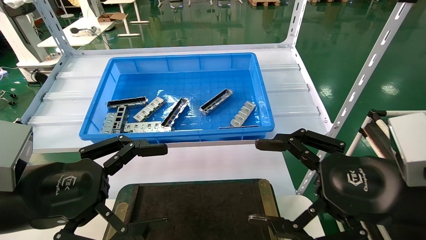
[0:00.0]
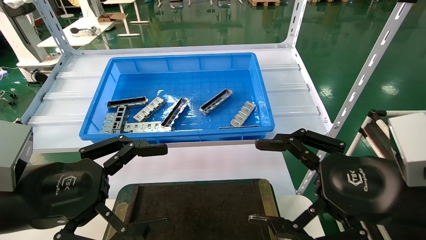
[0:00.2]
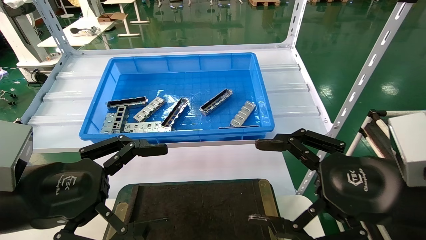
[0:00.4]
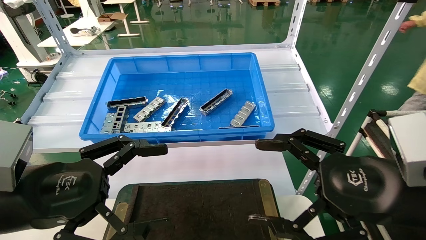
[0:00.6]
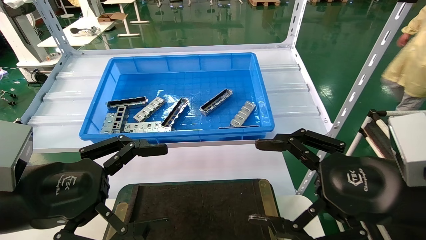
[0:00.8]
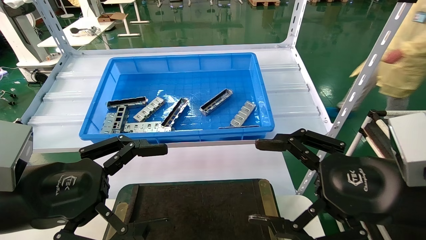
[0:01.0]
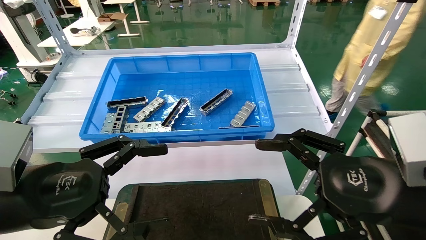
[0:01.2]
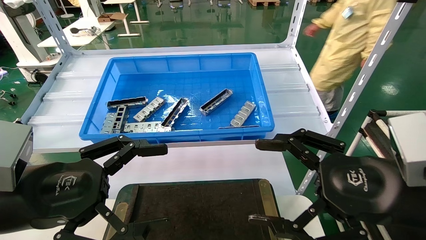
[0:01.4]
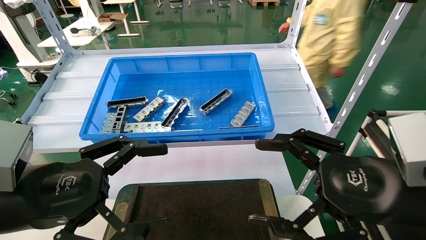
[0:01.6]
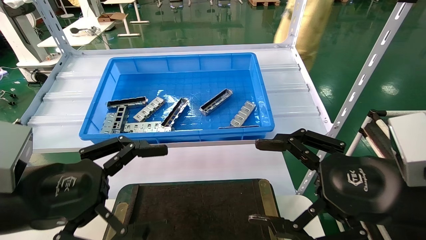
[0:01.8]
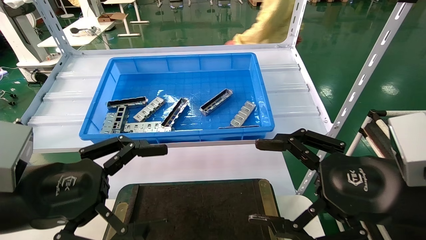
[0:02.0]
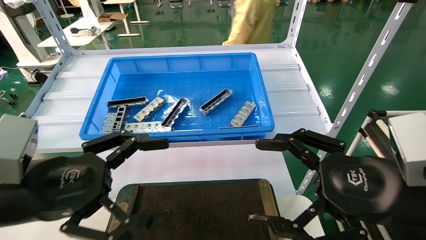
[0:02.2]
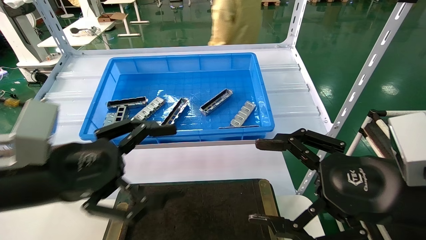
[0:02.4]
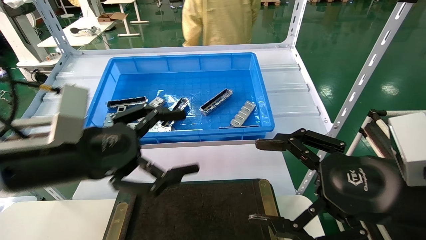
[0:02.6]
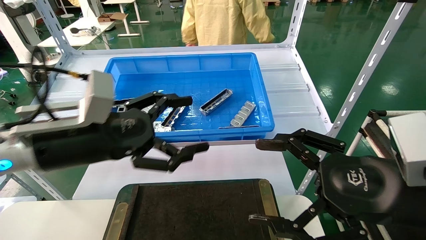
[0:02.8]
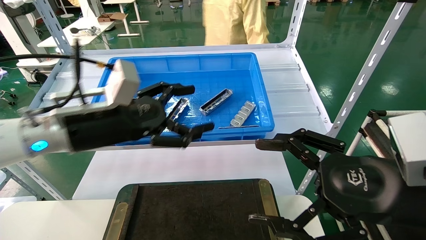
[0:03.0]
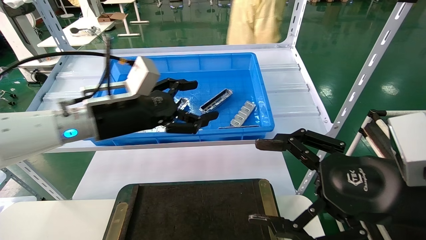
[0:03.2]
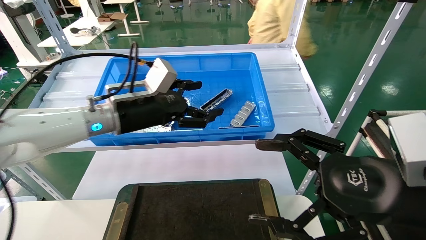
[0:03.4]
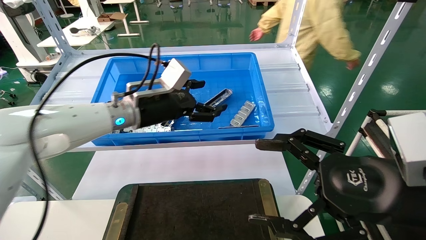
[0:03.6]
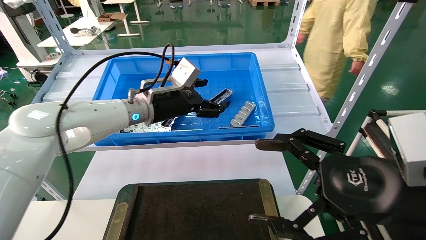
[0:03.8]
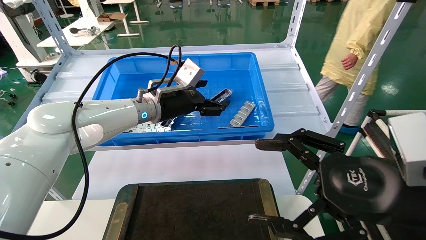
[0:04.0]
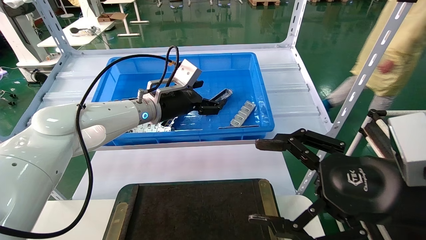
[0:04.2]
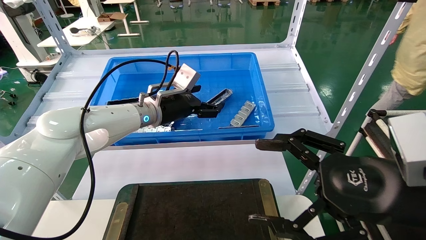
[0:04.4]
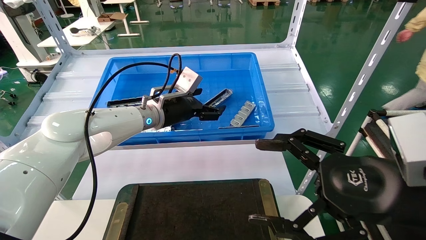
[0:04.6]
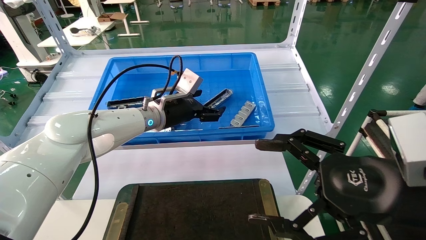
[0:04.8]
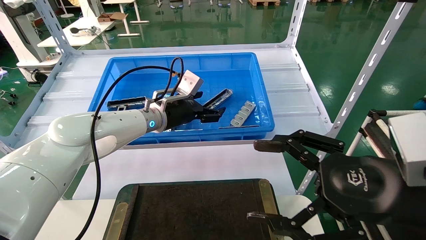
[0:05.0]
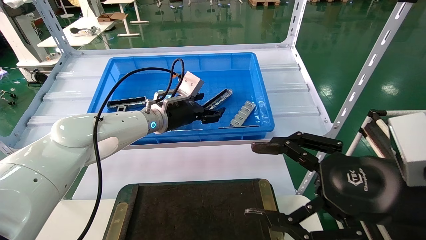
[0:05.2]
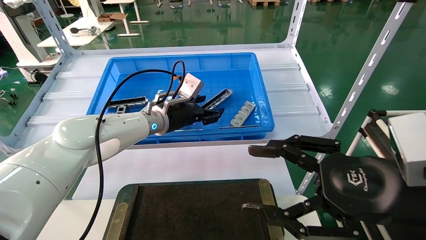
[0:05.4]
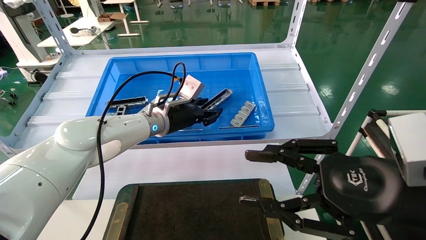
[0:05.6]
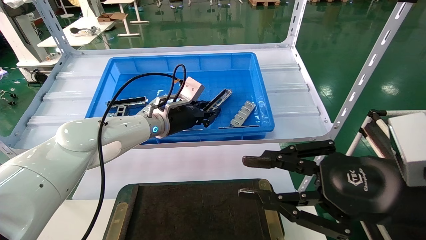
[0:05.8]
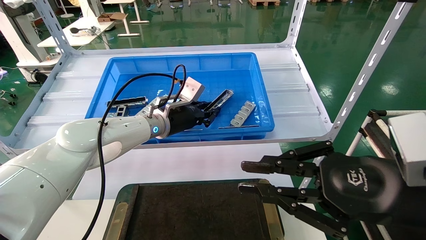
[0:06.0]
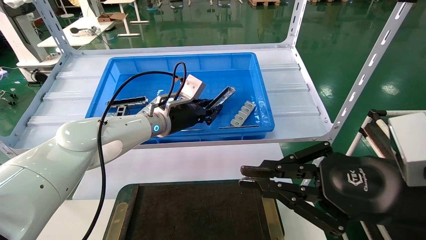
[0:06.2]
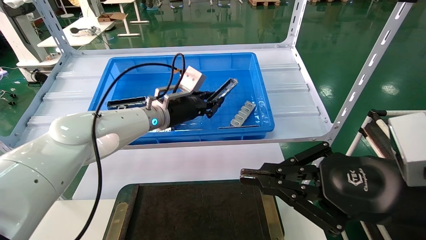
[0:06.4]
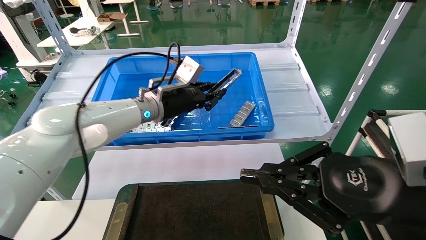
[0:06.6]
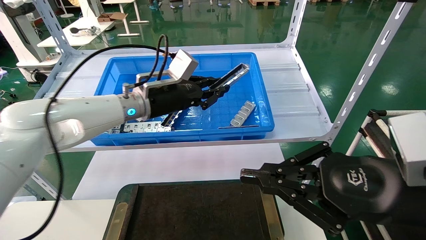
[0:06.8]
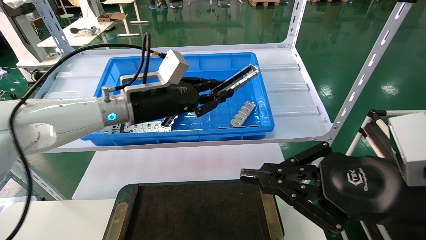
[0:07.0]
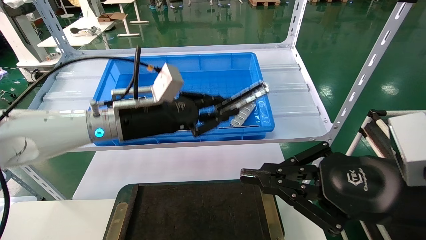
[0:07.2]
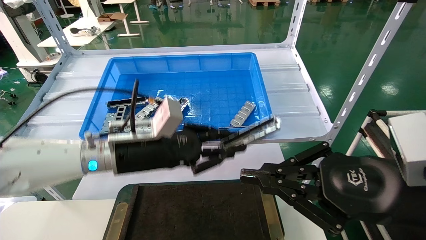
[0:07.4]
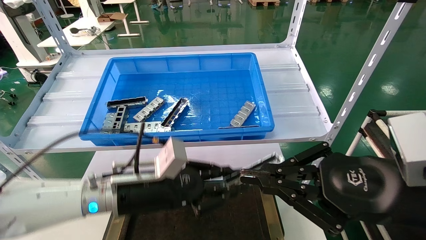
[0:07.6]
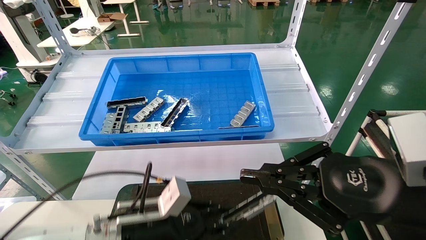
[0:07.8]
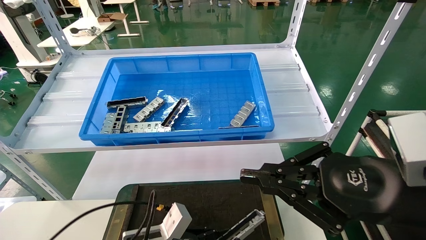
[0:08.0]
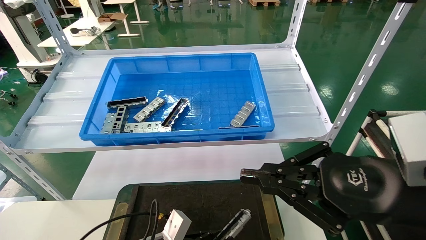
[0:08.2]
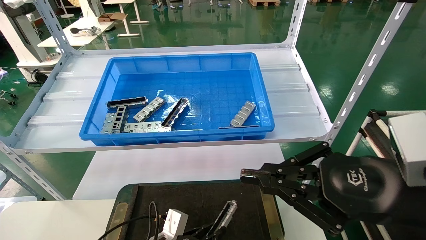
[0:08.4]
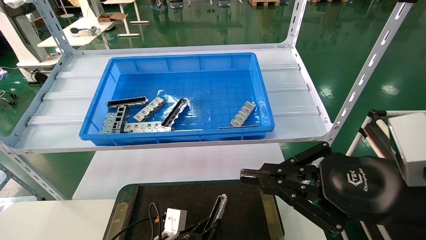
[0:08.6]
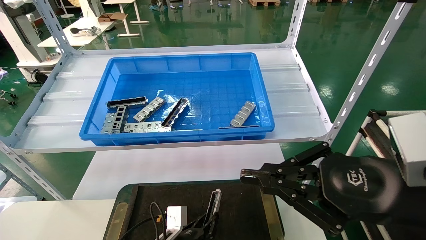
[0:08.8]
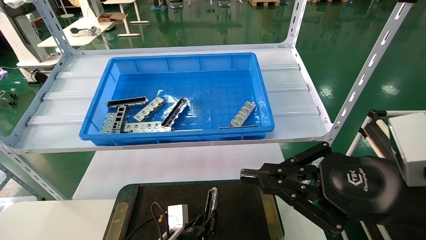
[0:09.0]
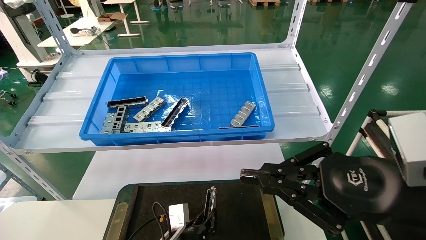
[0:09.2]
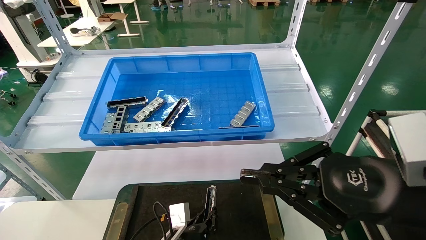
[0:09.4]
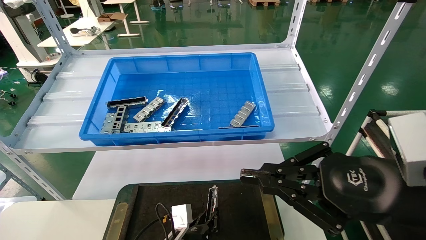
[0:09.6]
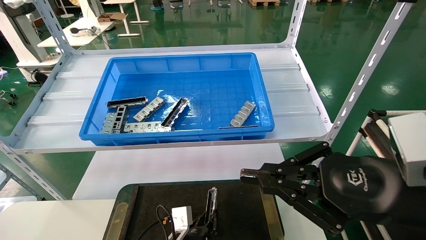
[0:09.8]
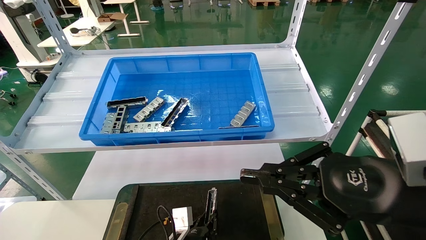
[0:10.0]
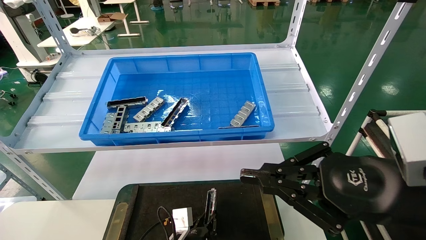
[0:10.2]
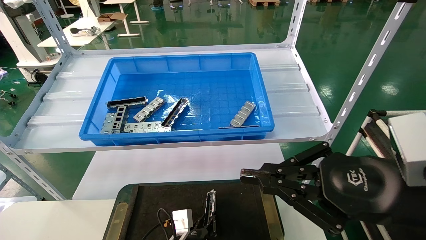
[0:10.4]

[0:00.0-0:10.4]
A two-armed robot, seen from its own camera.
Task of the whole recording: Grasp the part with one hand and place it on the black container.
Step, 0:02.4 to 0:06.6: Pick up the front USB bracket from the feeding area.
0:00.0 to 0:01.4: Both grippers stay about where they are.
0:01.4 to 0:03.0: The left gripper shifts some 15 cm forward and to the right.
0:03.0 to 0:04.4: The left gripper shifts roughly 20 cm forward and to the right.
0:04.4 to 0:06.0: The right gripper closes. Meanwhile the left gripper closes up.
0:06.0 to 0:07.4: The left gripper moves backward, some 15 cm.
0:07.4 to 0:09.0: The left gripper is displaced downward by some 25 cm.
0:09.0 to 0:10.4: The grippers move only a little.

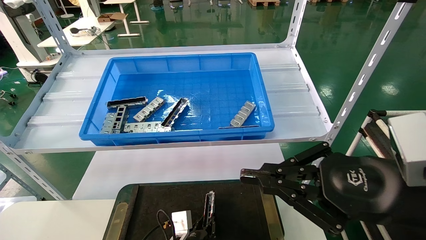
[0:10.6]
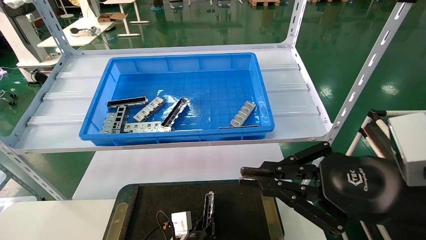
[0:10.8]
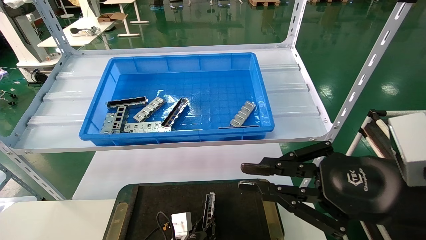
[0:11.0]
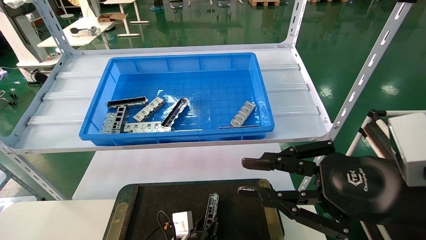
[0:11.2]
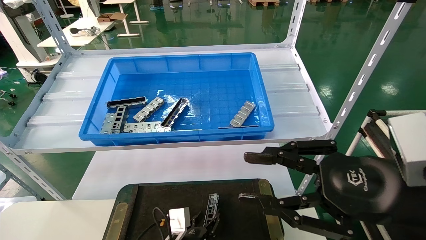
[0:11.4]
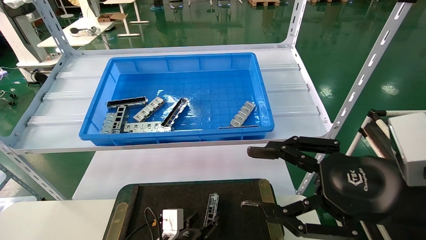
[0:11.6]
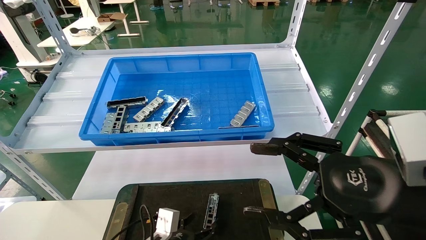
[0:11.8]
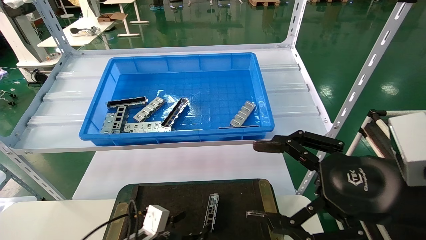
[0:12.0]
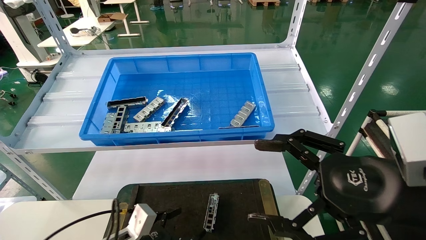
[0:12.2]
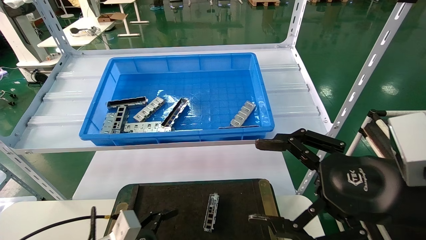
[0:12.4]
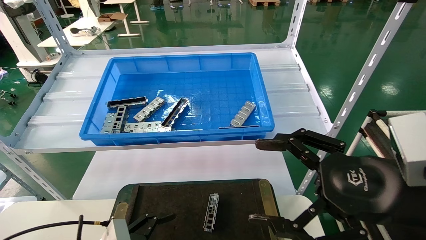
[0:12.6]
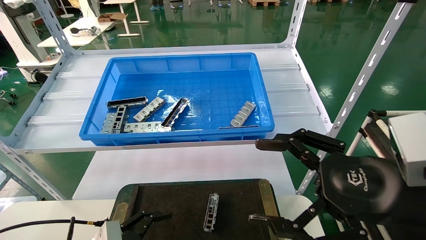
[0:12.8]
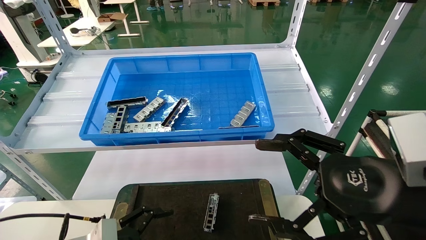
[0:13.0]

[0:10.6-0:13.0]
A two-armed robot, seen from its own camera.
Task of the whole recording: Grasp the part with one hand and place it on the black container.
0:10.6 to 0:11.8: The right gripper opens, while the left gripper shifts roughly 5 cm to the left, and opens up.
0:11.8 to 0:13.0: The left gripper shifts some 15 cm to the left, upward and backward.
